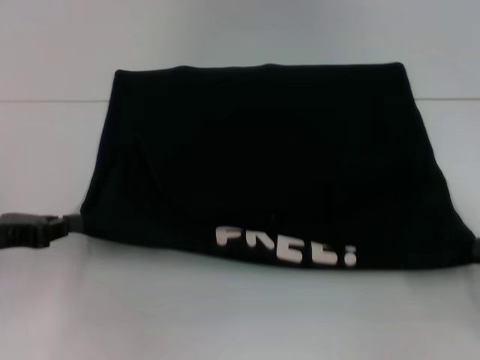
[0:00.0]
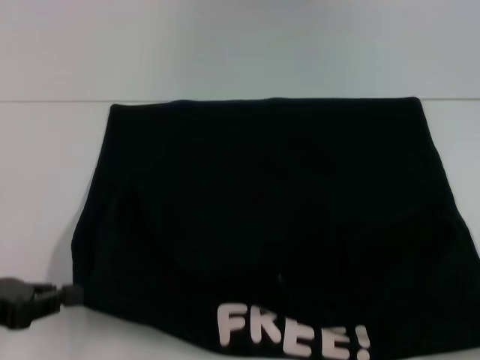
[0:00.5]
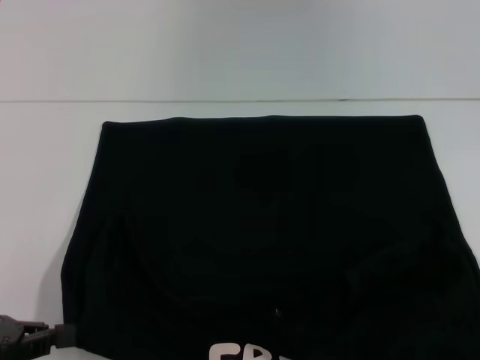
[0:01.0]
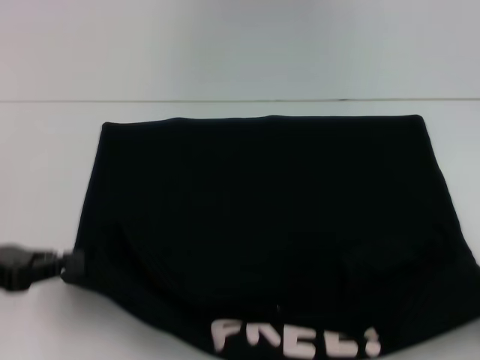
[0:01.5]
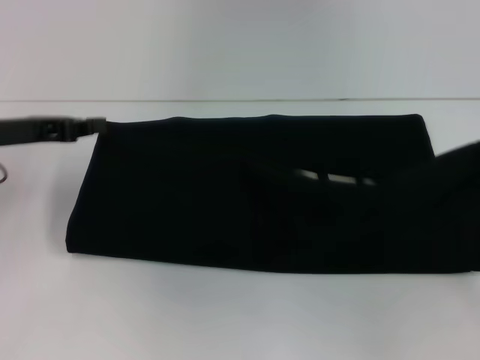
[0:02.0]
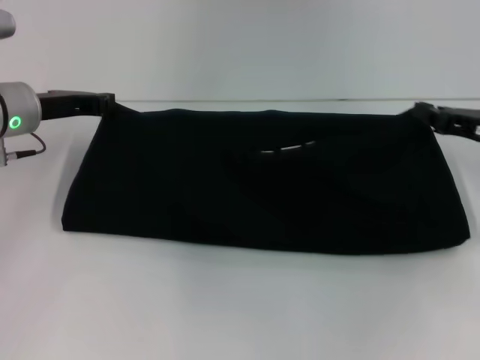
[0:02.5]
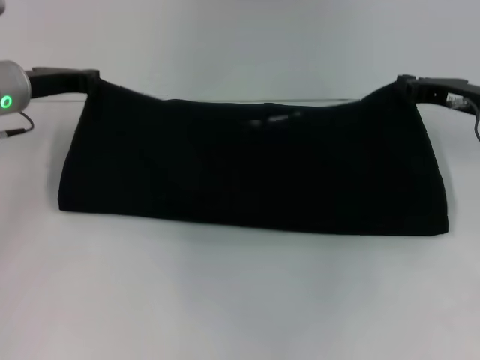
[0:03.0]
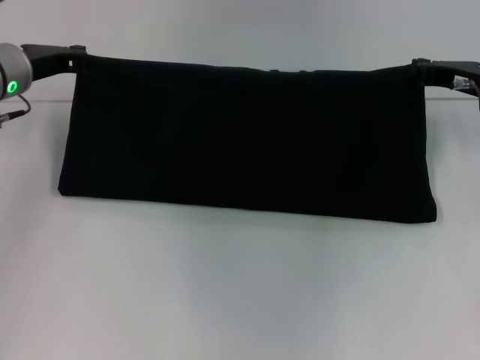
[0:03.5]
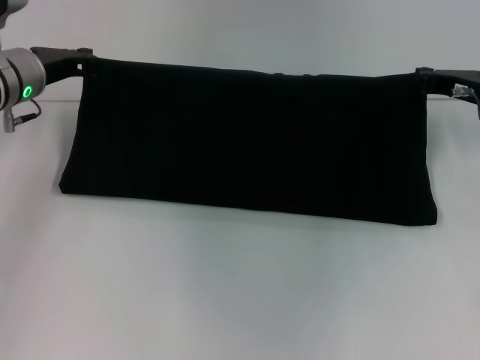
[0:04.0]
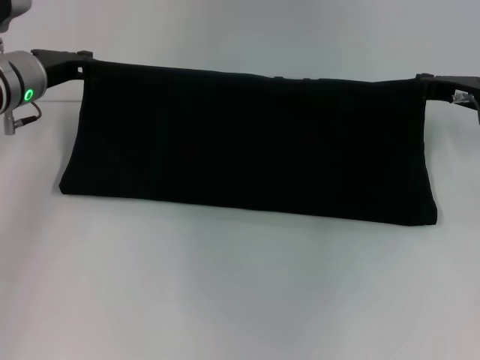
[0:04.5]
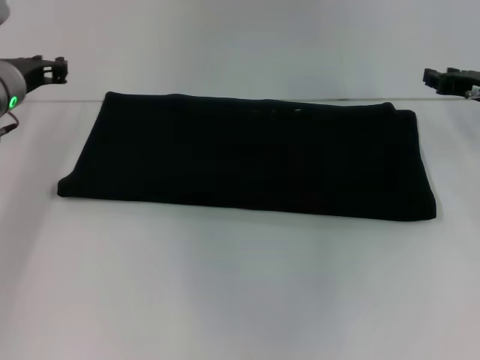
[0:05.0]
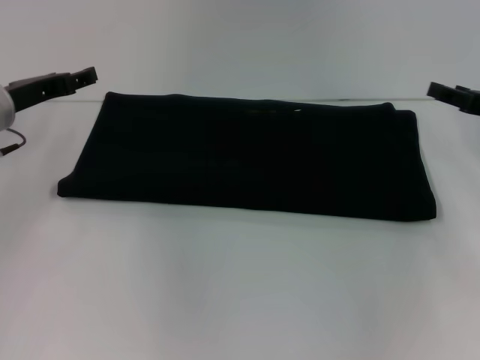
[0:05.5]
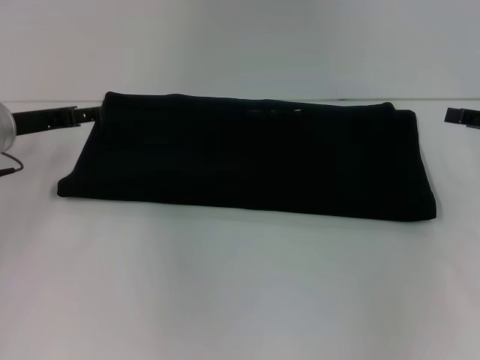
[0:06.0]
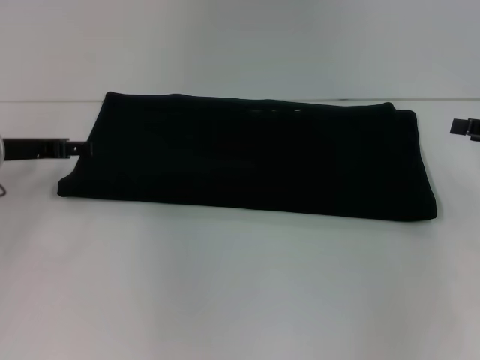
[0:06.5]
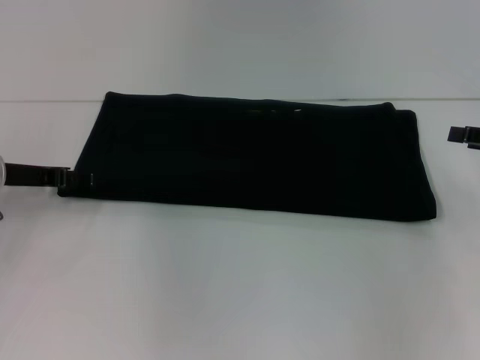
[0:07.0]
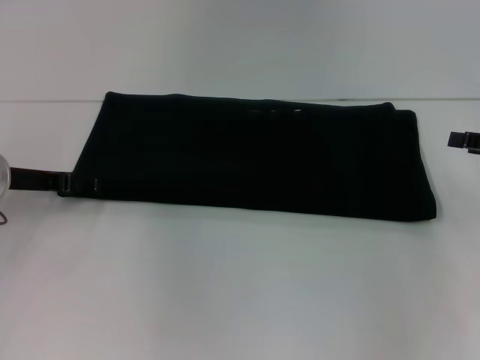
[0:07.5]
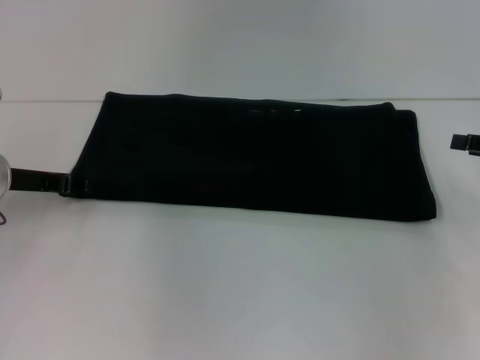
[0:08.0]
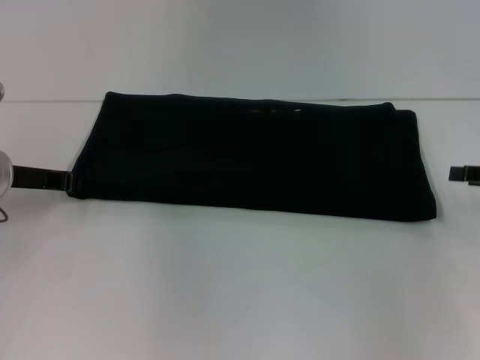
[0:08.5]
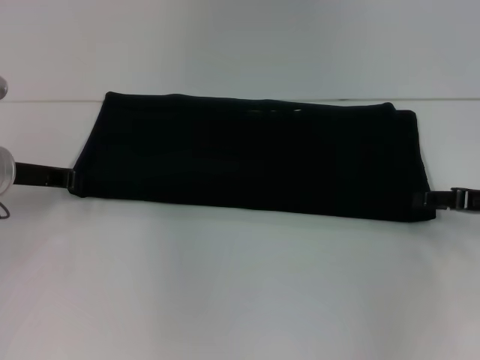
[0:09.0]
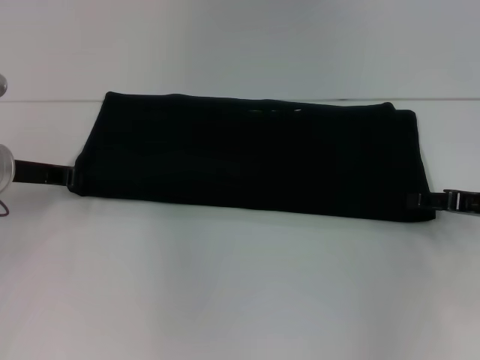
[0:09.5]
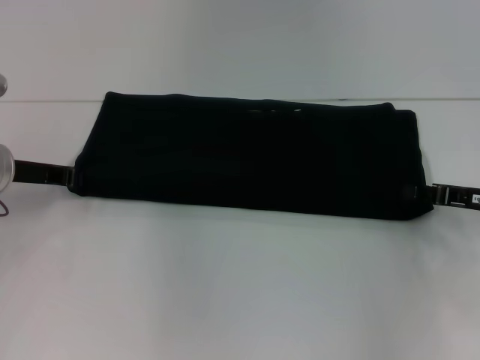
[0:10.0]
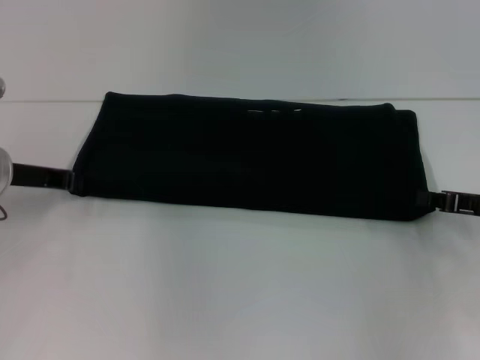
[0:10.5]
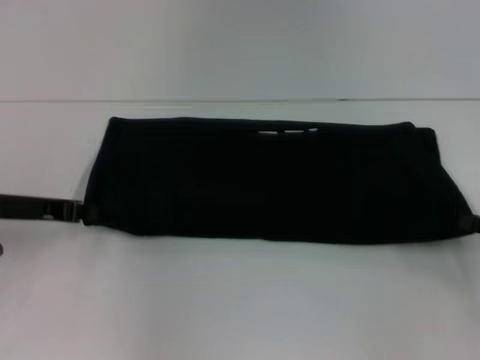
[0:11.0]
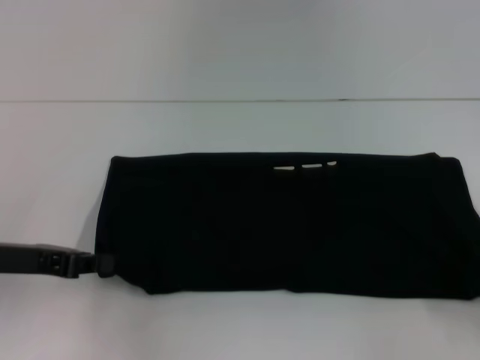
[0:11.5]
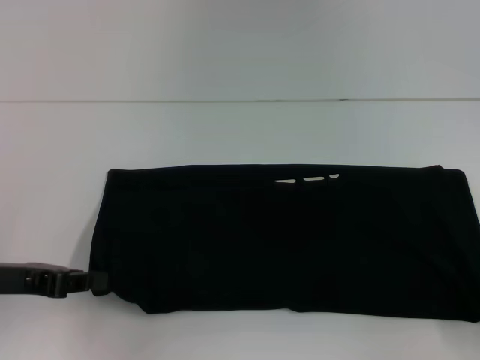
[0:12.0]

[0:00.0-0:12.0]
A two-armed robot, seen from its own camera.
Step, 0:01.5 to 0:04.5: Fold the clothes with your right hand.
0:00.0 to 0:02.0: The left gripper travels forward by roughly 10 cm; the right gripper is displaced upward by about 5 cm, and goes backward and returns, some 10 cm each way.
0:02.0 to 0:04.0: The right gripper is displaced forward and to the left by some 20 cm; the left gripper goes approximately 10 cm forward and to the right.
0:04.0 to 0:06.0: The left gripper changes place by approximately 5 cm, and opens. Meanwhile the right gripper shifts some 10 cm to the right and backward, and opens up.
0:06.0 to 0:08.0: The grippers stay close to where they were, moving slightly.
0:08.0 to 0:10.0: The right gripper moves to the left and downward, some 10 cm. The left gripper closes up.
0:10.0 to 0:12.0: The left gripper heads backward, covering some 10 cm. Meanwhile the right gripper heads backward and to the right, covering some 15 cm.

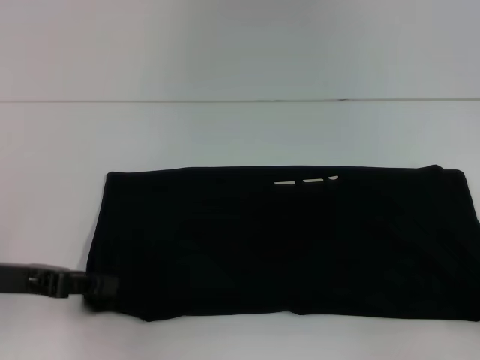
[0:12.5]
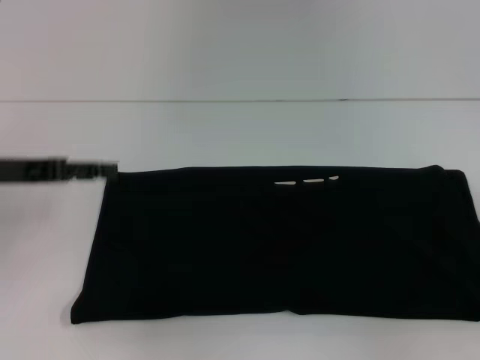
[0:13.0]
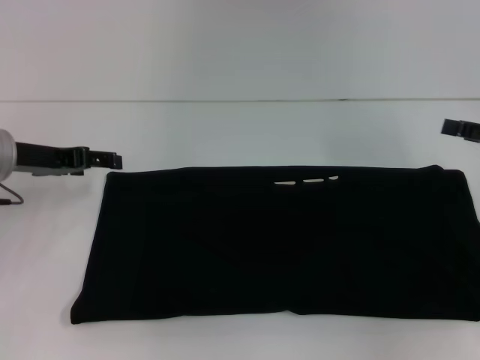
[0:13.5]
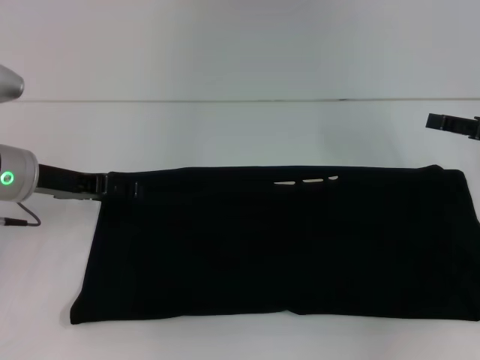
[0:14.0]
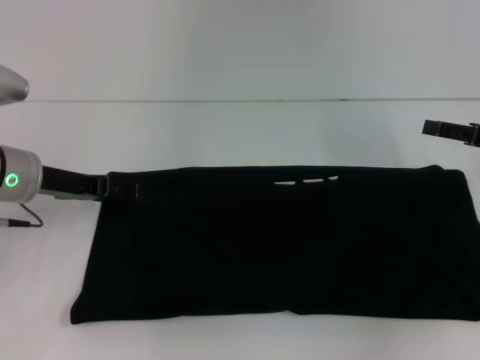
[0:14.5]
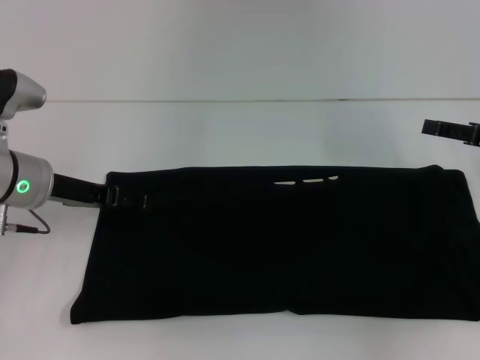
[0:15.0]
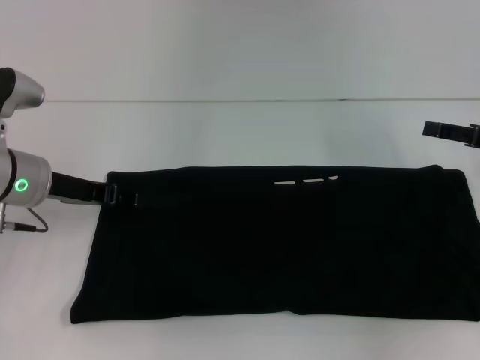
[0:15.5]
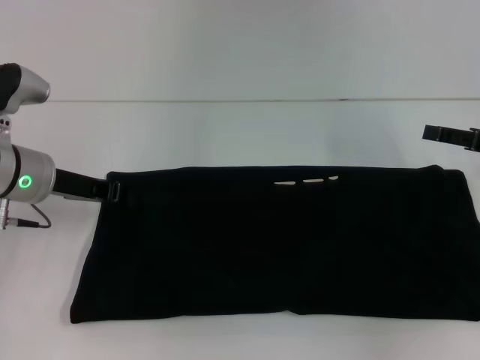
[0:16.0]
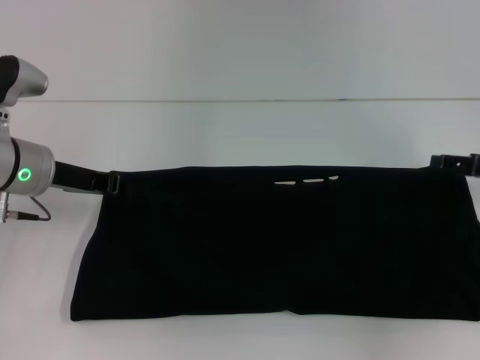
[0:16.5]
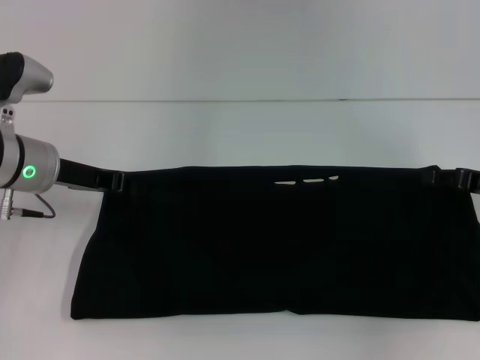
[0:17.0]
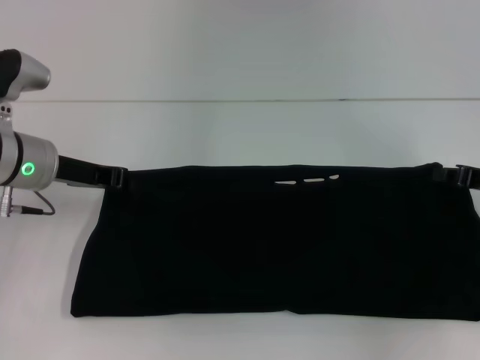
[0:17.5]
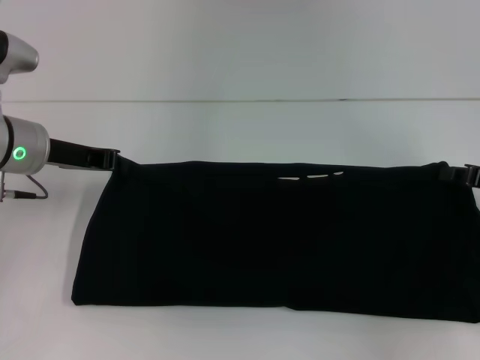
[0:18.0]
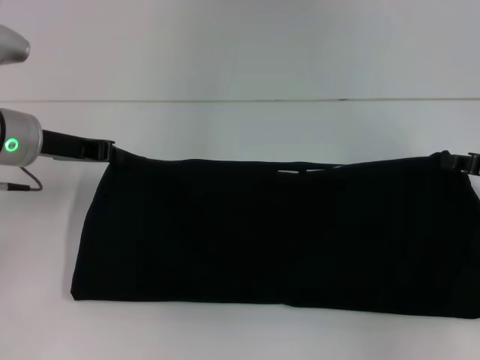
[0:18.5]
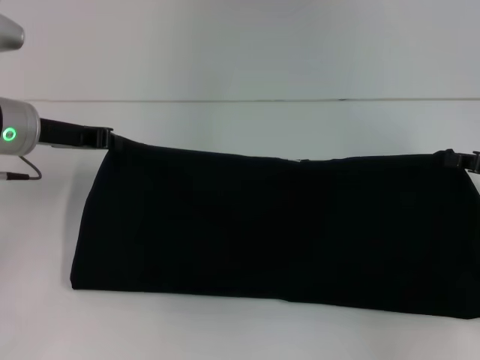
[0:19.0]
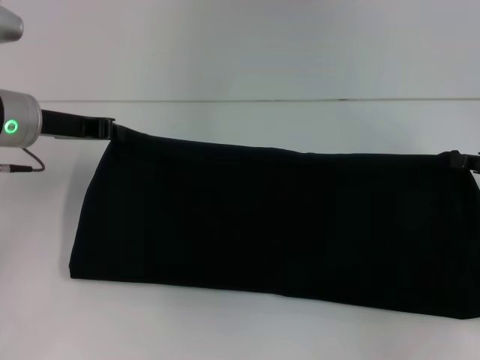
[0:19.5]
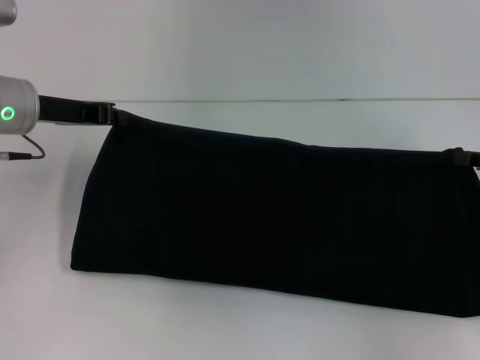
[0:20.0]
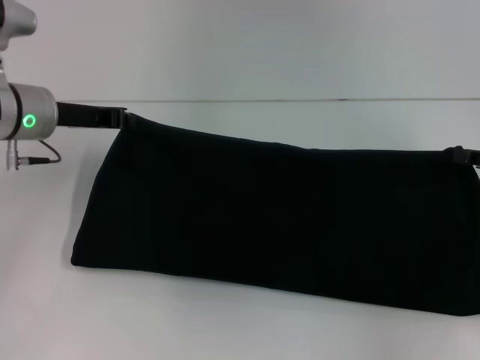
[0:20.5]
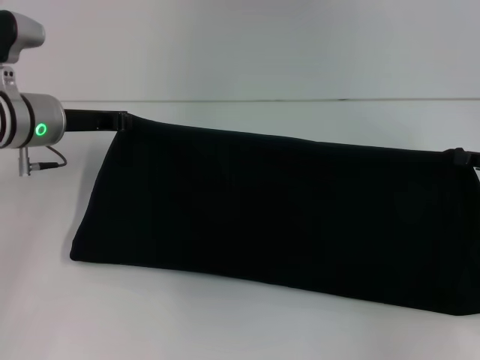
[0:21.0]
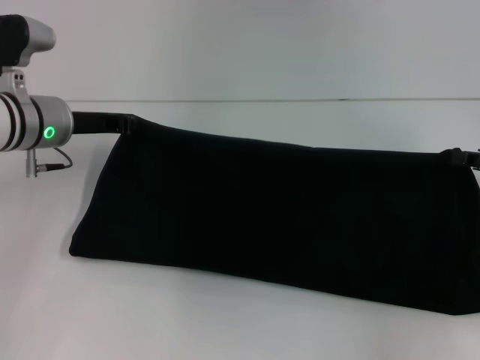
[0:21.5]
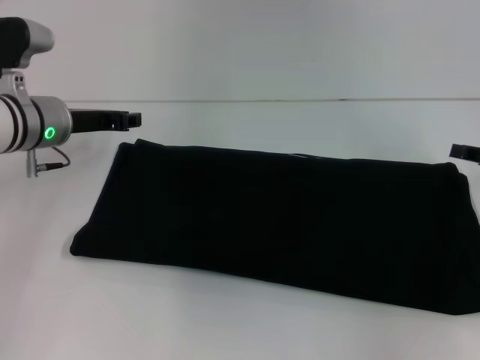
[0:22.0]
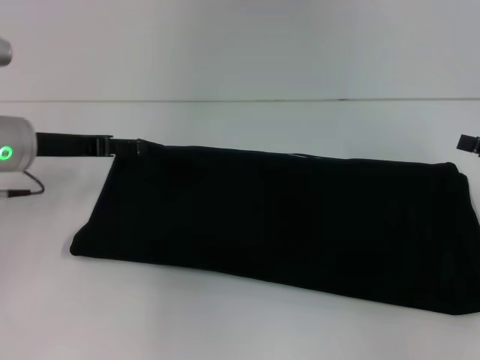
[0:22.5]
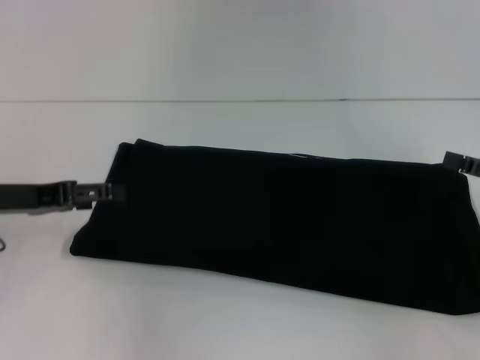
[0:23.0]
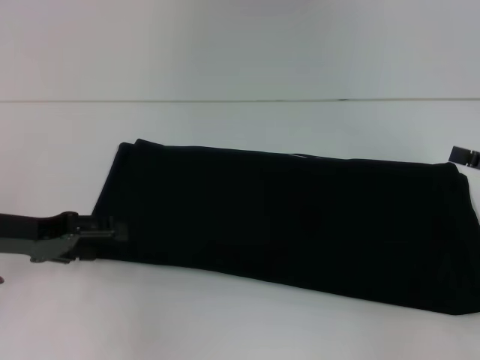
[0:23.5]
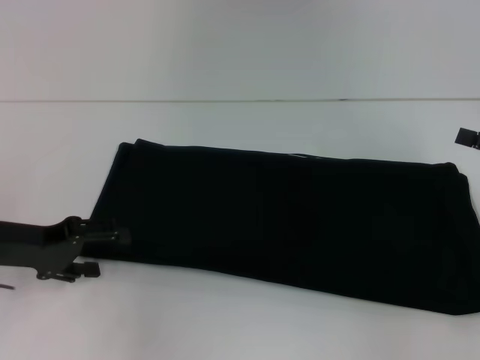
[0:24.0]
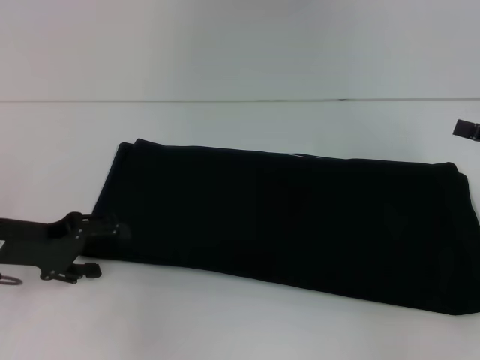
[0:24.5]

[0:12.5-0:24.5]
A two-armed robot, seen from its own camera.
0:12.5 to 0:14.5: The left gripper shifts roughly 10 cm forward, and opens up, while the right gripper shifts roughly 20 cm forward and to the left, and opens its fingers.
0:14.5 to 0:16.5: The left gripper closes up.
0:16.5 to 0:18.5: The right gripper closes.
0:18.5 to 0:20.5: The grippers stay close to where they were, moving slightly.
0:20.5 to 0:22.5: The left gripper opens, while the right gripper opens its fingers.
0:22.5 to 0:24.5: The left gripper shifts roughly 5 cm backward.

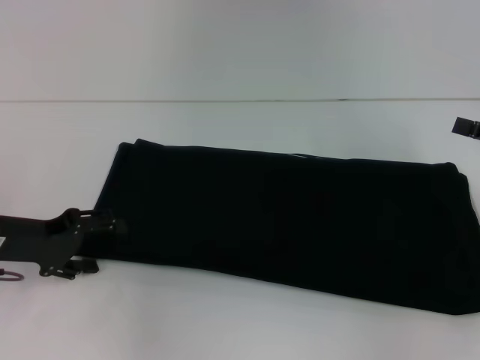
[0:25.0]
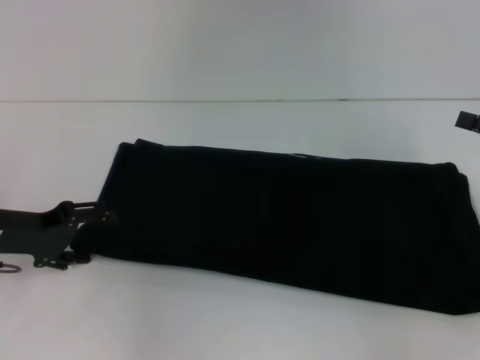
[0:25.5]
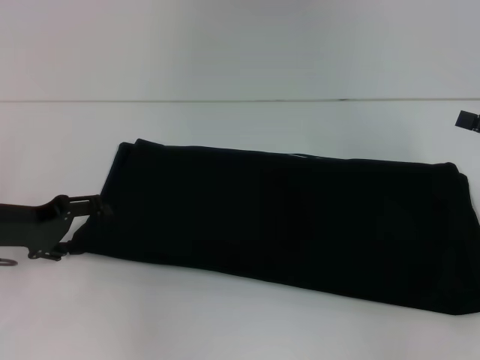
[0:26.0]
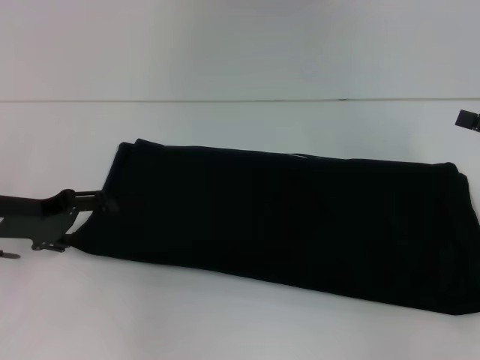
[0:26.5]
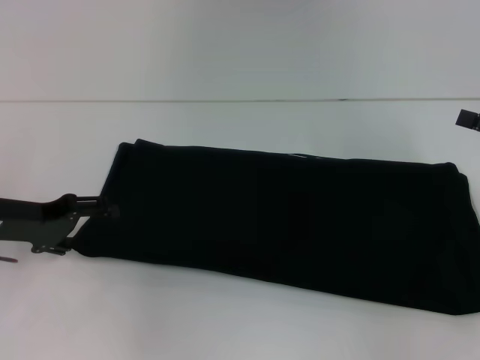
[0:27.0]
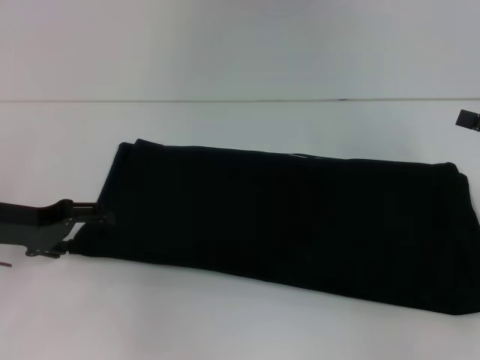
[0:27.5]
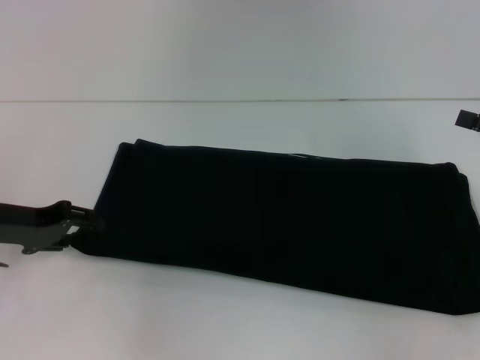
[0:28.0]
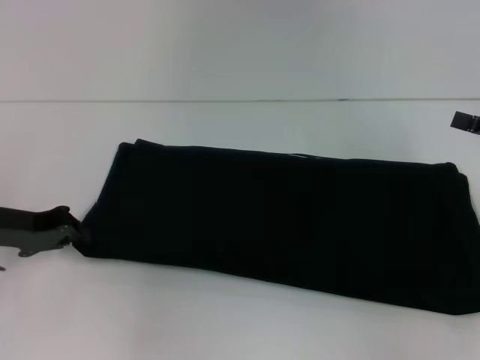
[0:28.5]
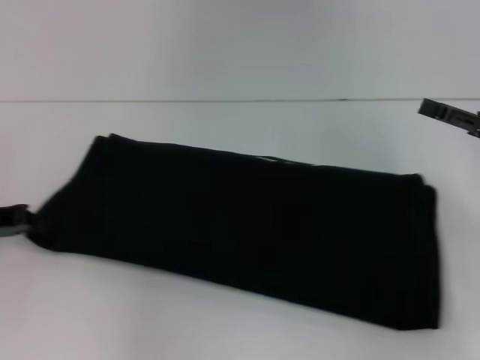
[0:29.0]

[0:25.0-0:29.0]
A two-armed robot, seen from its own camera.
0:25.0 to 0:27.0: The grippers move only a little.
0:27.0 to 0:29.0: The left gripper closes its fingers.
